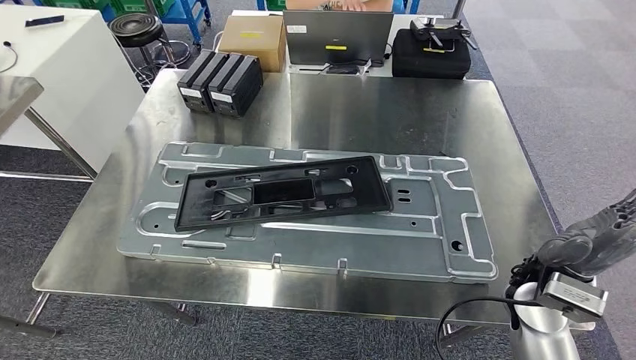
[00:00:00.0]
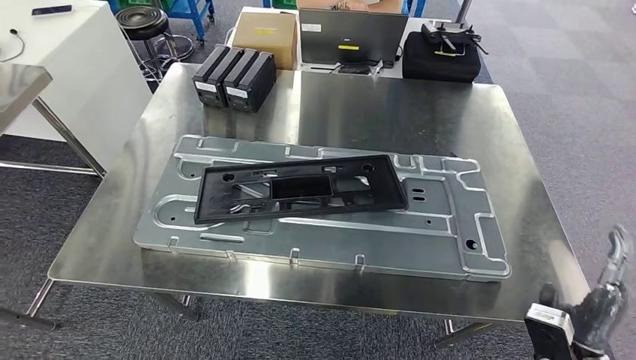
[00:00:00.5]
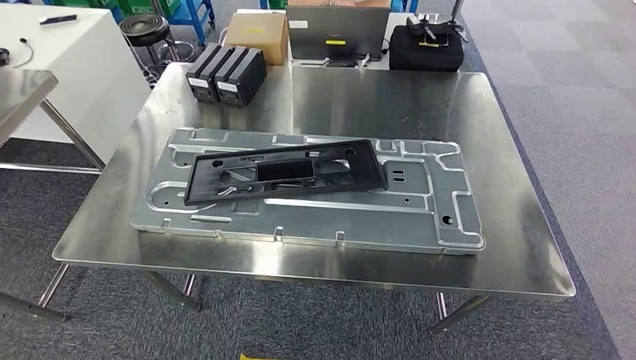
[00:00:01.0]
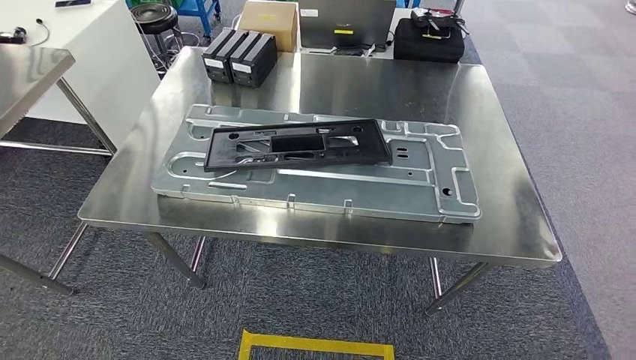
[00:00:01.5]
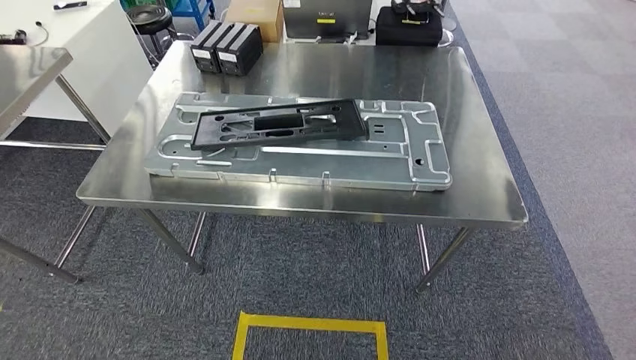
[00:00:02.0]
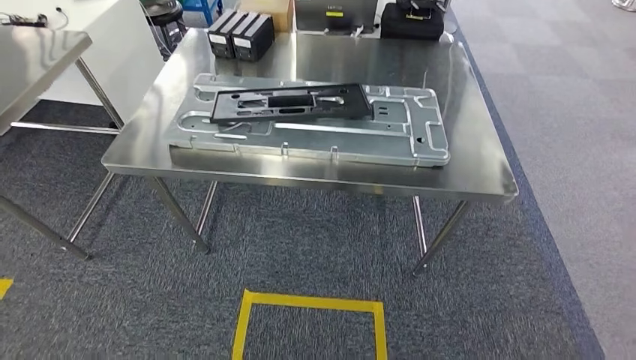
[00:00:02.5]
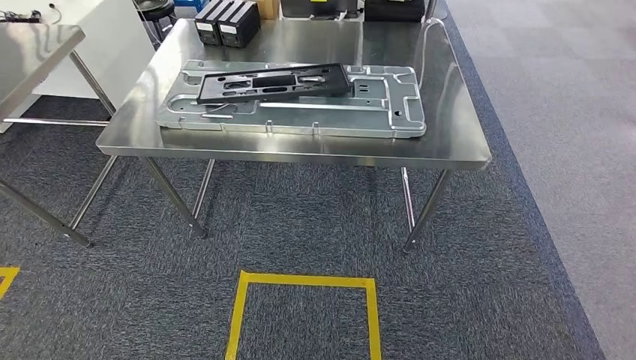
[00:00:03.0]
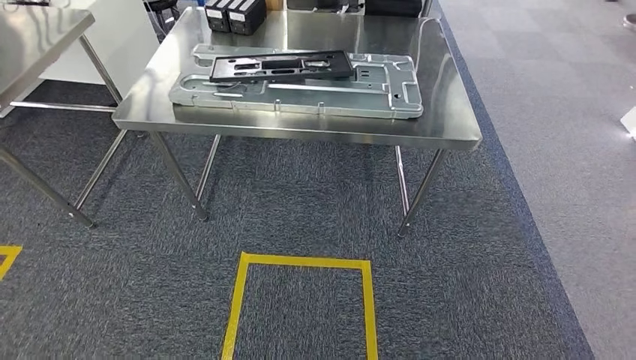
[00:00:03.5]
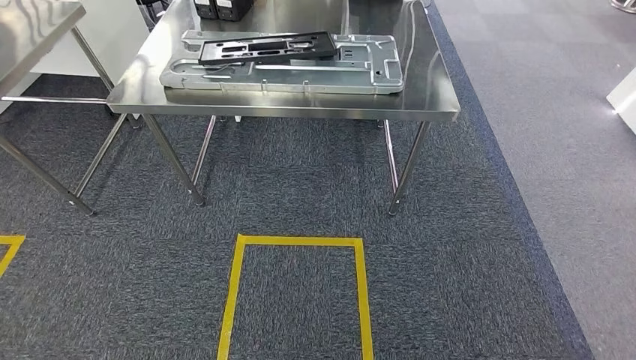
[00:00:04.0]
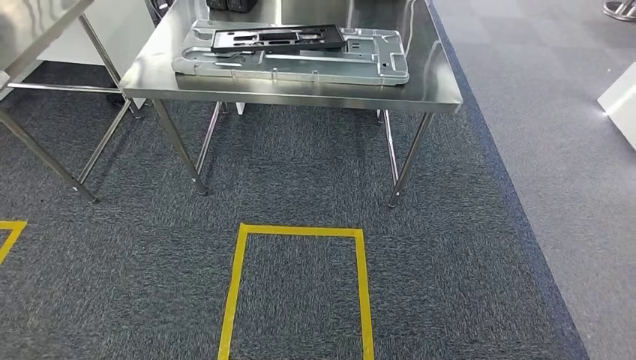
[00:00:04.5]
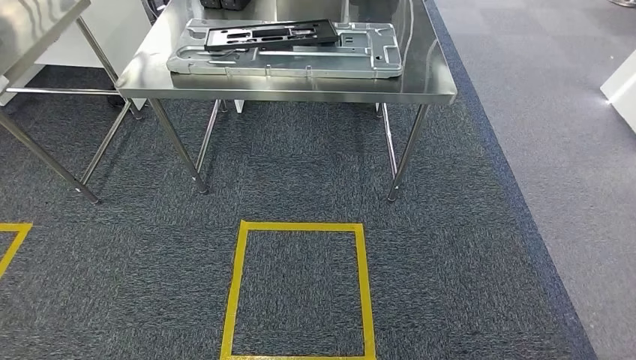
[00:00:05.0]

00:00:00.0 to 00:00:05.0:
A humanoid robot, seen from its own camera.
Step, 00:00:01.0 to 00:00:05.0: Move to the initial position of the shelf.
